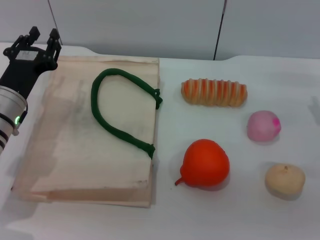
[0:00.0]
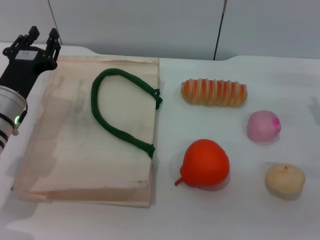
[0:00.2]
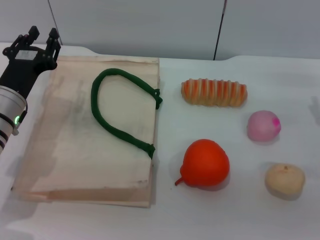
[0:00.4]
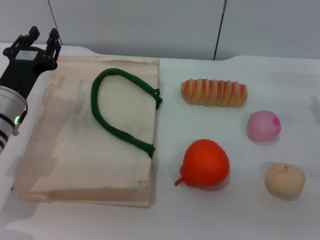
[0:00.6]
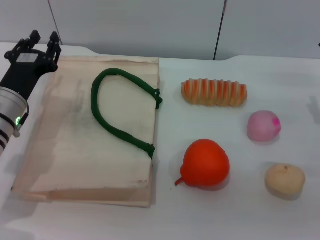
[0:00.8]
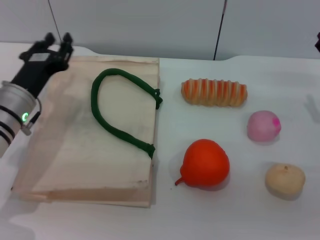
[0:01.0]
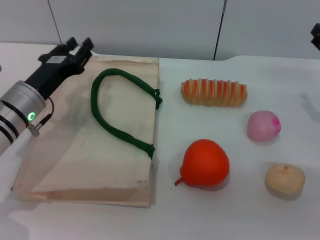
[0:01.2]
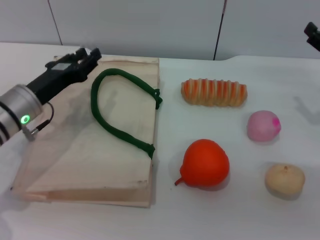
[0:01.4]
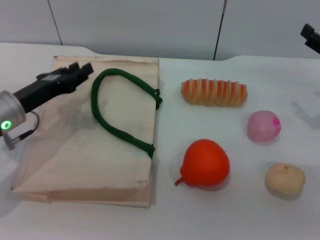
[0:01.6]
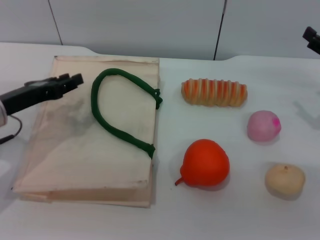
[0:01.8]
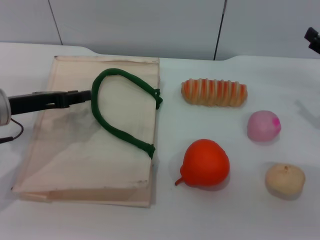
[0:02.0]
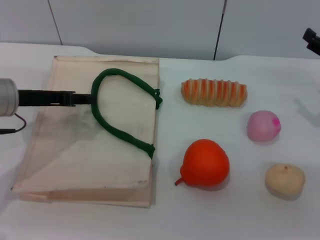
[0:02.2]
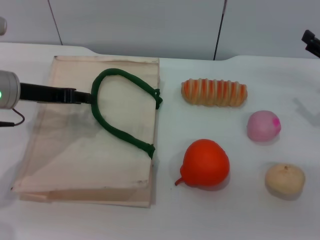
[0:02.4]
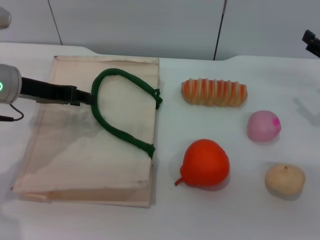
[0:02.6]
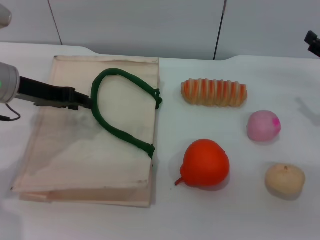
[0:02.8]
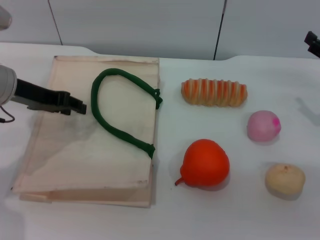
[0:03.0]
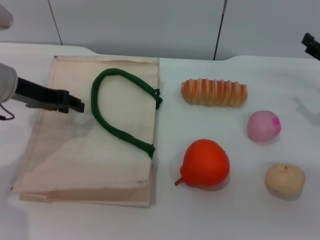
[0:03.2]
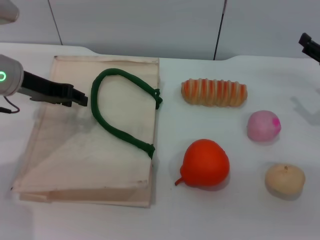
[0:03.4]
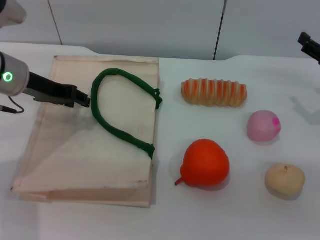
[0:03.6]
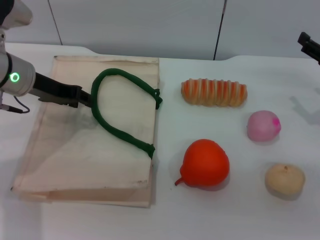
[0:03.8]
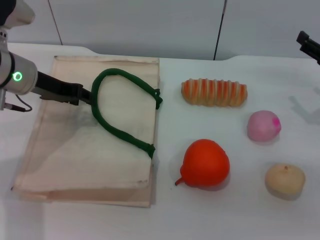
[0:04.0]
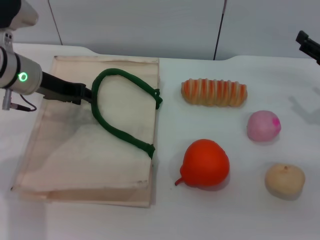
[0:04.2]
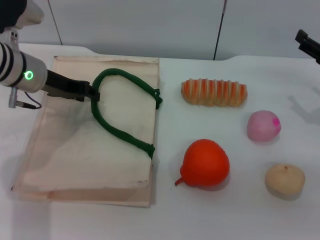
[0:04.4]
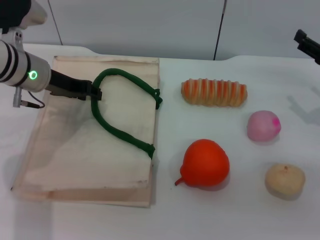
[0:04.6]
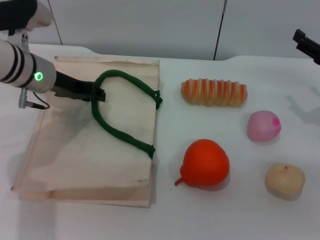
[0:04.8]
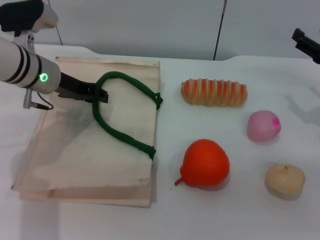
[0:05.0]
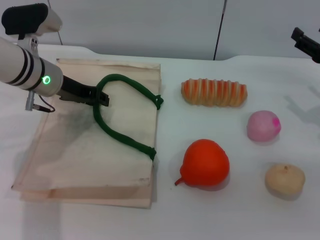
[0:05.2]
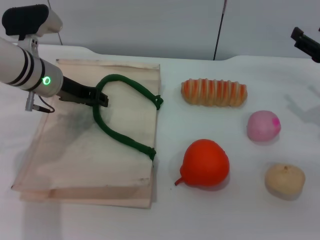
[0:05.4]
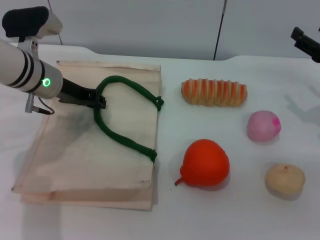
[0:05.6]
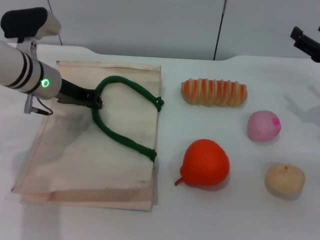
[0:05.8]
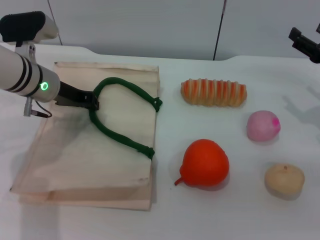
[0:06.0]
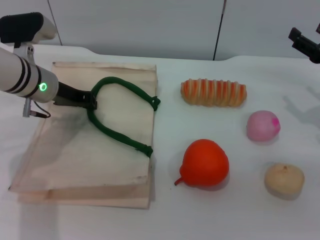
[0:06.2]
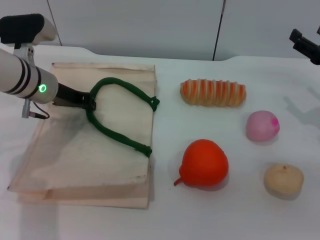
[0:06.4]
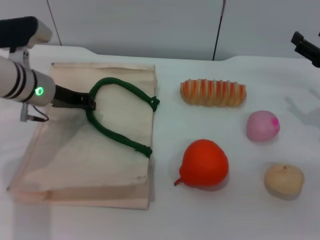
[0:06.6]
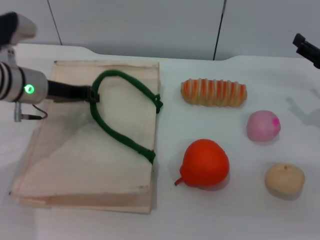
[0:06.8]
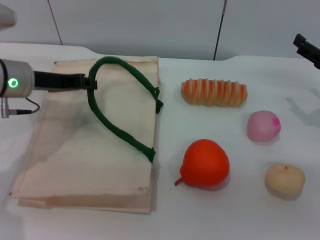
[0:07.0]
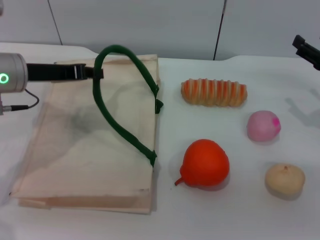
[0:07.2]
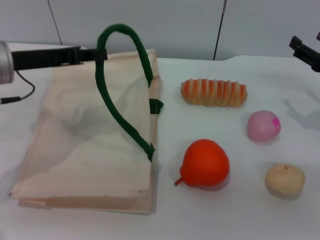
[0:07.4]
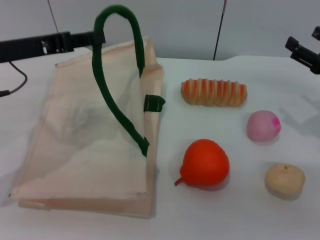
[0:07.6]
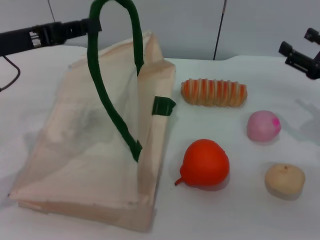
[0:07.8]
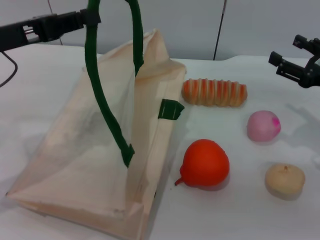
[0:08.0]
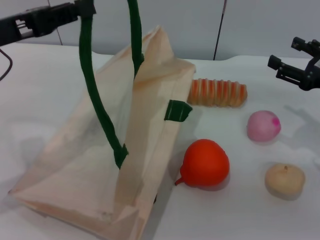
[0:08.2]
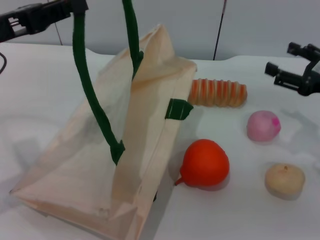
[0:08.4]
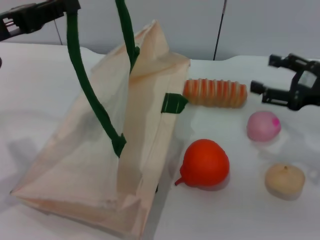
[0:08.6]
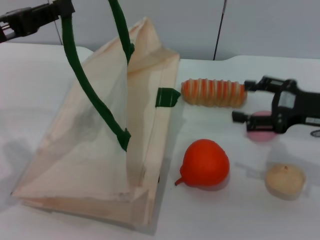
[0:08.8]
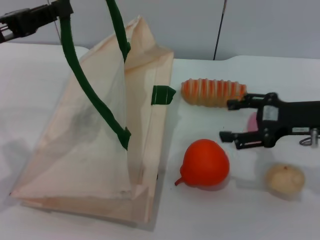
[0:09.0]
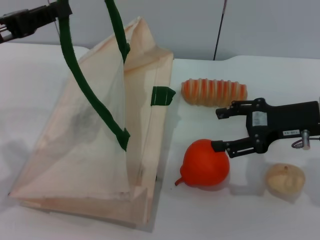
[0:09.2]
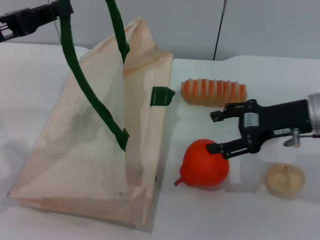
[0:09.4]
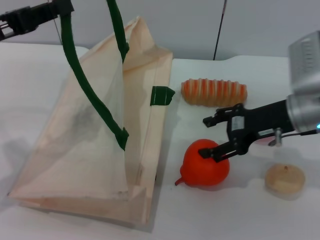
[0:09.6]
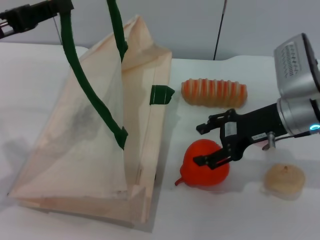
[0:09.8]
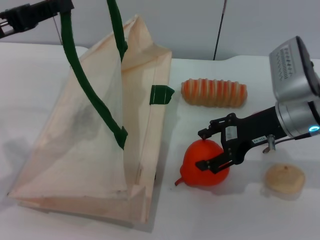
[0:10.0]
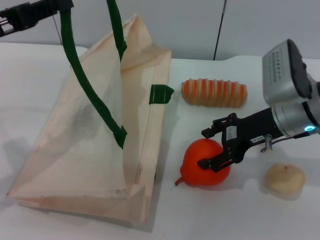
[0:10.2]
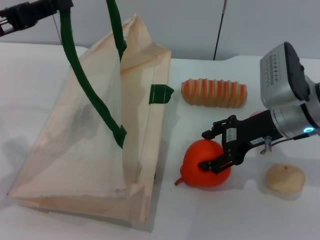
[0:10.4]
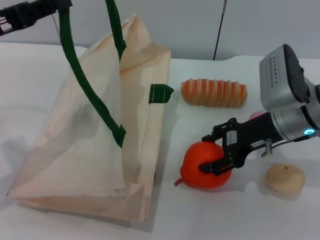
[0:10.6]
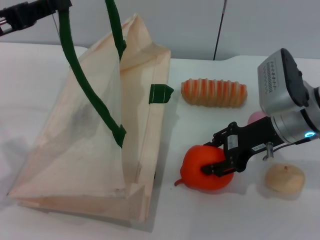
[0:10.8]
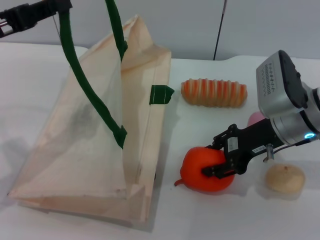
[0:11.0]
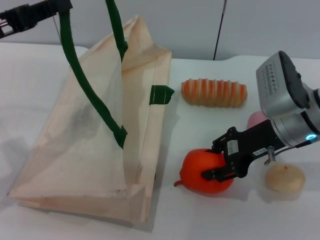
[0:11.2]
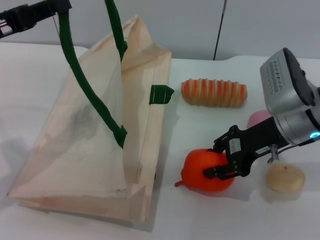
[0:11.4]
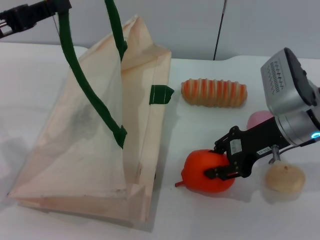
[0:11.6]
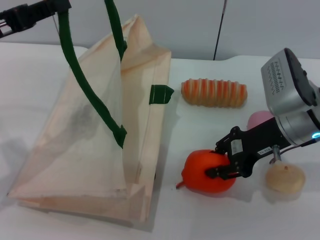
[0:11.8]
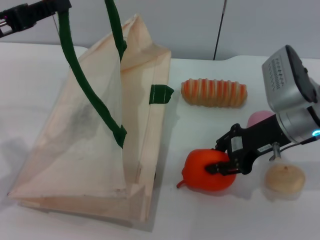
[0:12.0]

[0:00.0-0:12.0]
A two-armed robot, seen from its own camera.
Task of the whole recording: pick up the orange and peach from the table and place it in the white handbag.
Step, 0:00.0 to 0:07.4: Lift the woven bag with the left gripper to open it.
0:01.6 to 0:03.0: The left gripper goes some 10 cm upward.
0:03.0 to 0:04.4: The left gripper ends up approximately 5 cm from where it was.
0:04.4 to 0:06.0: The grippers stay close to where they were, moving slightly.
0:06.0 to 0:07.6: The left gripper heads backward and upward, covering roughly 10 cm.
0:07.6 to 0:09.0: The right gripper shifts approximately 5 cm to the left.
0:09.0 to 0:10.4: The right gripper heads to the left, covering about 5 cm.
0:10.4 to 0:12.0: The right gripper closes its fingers.

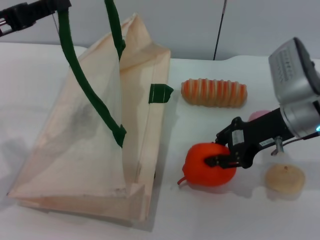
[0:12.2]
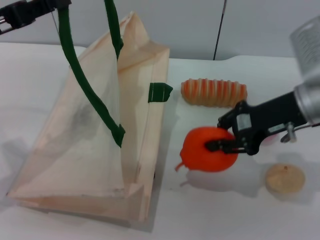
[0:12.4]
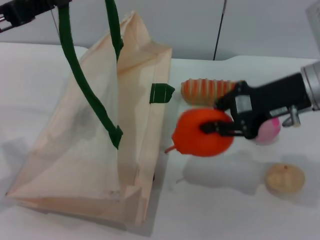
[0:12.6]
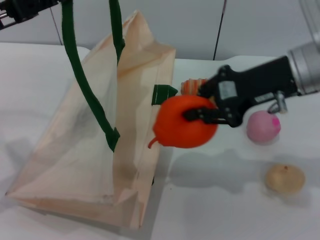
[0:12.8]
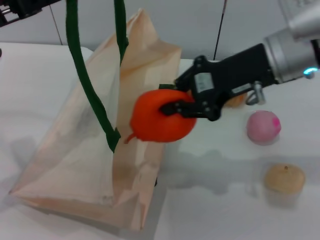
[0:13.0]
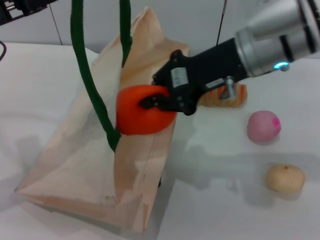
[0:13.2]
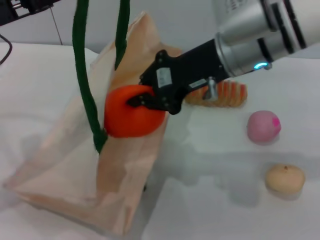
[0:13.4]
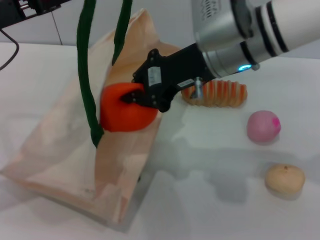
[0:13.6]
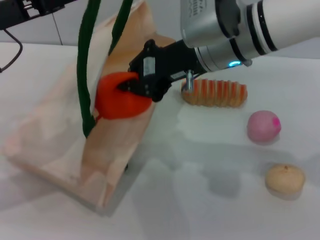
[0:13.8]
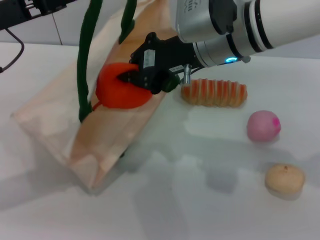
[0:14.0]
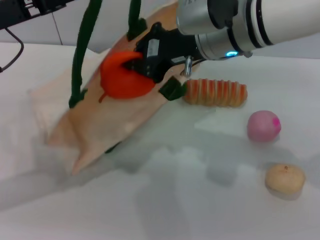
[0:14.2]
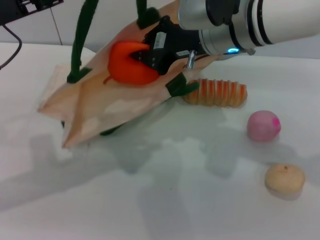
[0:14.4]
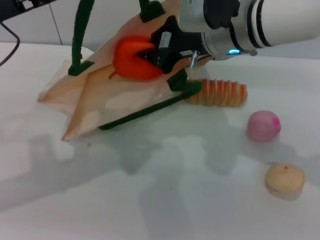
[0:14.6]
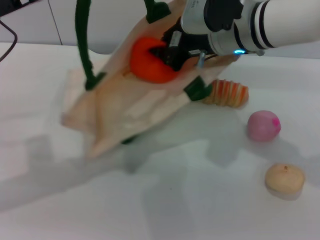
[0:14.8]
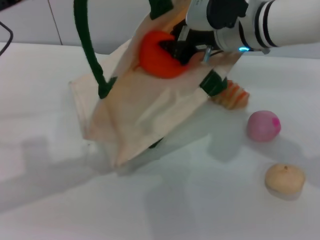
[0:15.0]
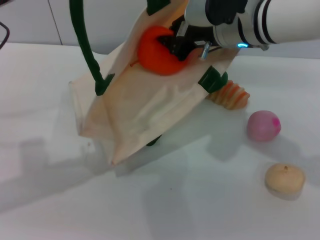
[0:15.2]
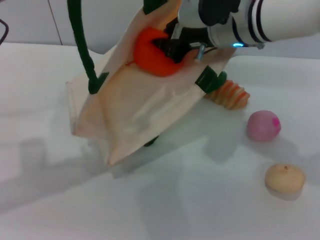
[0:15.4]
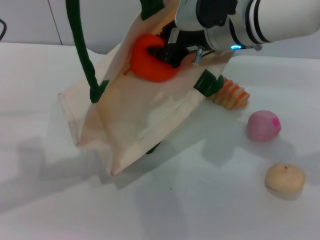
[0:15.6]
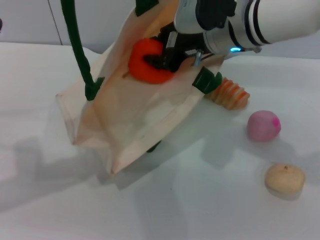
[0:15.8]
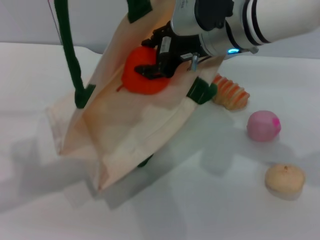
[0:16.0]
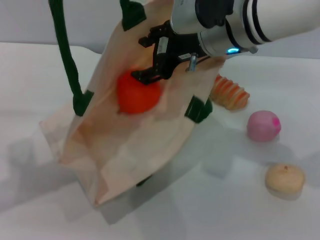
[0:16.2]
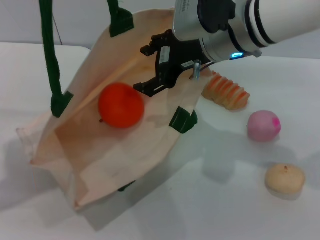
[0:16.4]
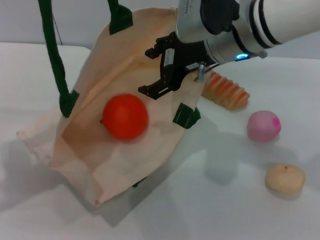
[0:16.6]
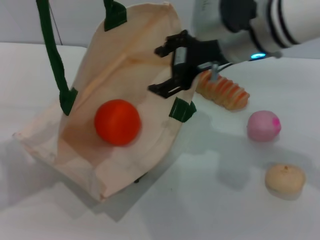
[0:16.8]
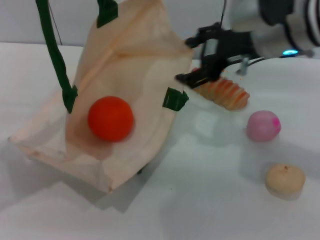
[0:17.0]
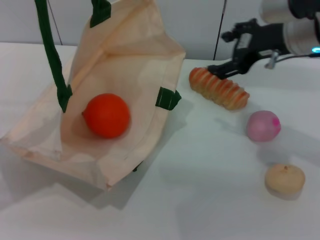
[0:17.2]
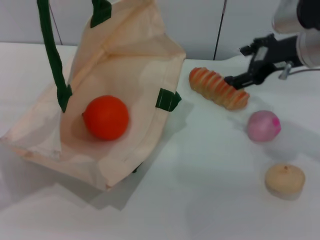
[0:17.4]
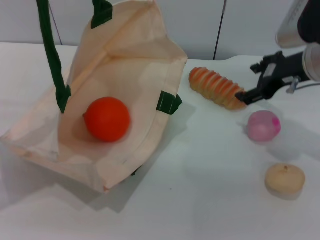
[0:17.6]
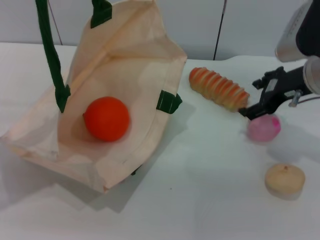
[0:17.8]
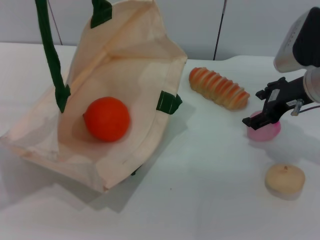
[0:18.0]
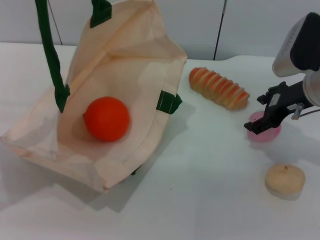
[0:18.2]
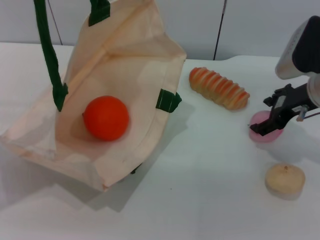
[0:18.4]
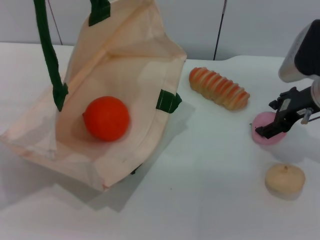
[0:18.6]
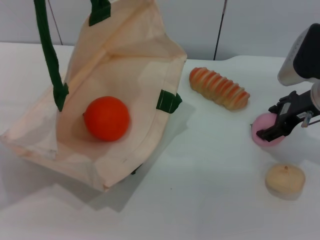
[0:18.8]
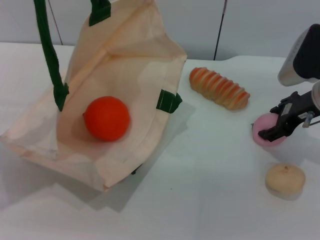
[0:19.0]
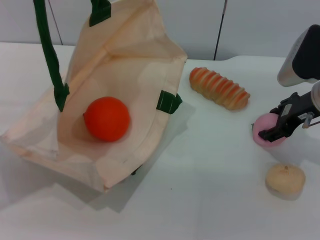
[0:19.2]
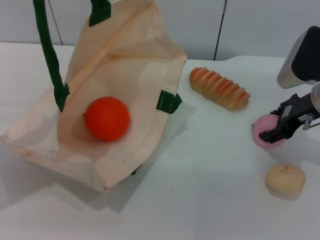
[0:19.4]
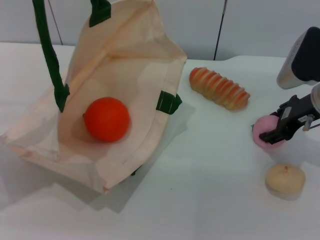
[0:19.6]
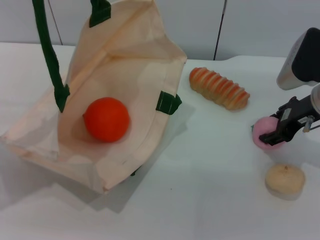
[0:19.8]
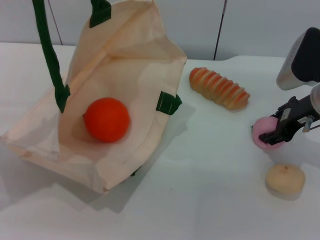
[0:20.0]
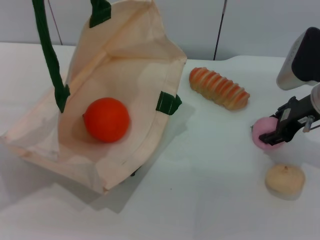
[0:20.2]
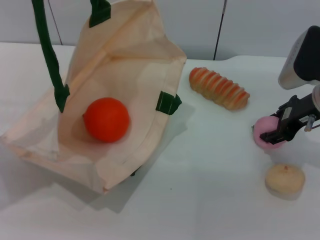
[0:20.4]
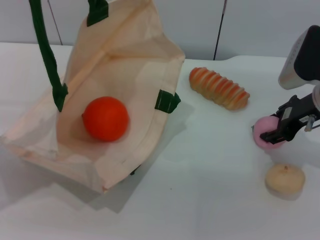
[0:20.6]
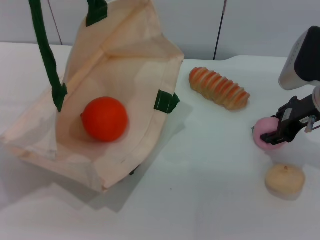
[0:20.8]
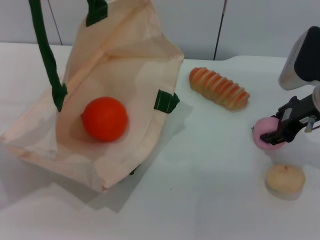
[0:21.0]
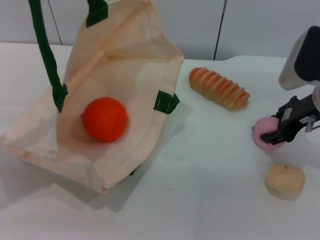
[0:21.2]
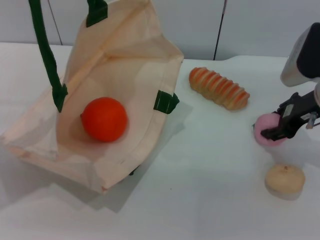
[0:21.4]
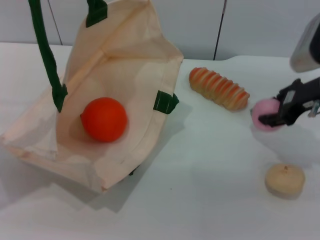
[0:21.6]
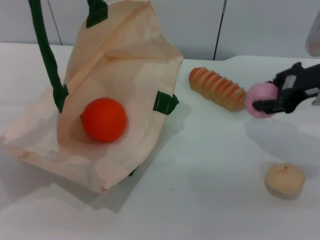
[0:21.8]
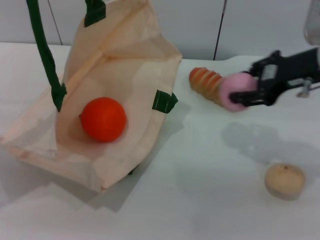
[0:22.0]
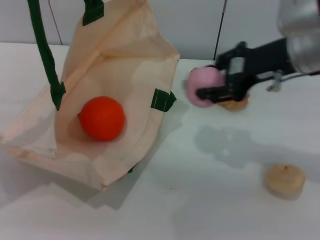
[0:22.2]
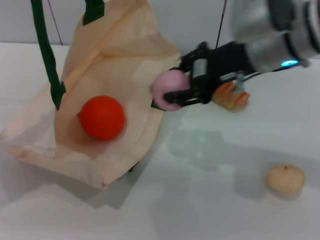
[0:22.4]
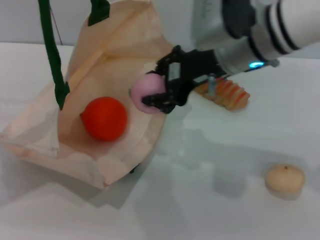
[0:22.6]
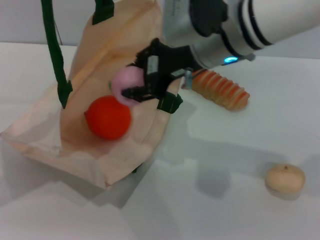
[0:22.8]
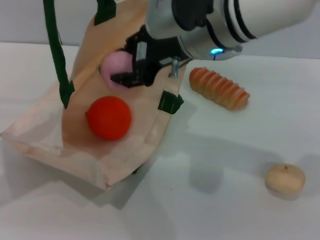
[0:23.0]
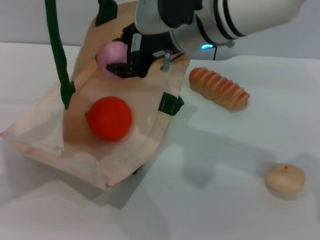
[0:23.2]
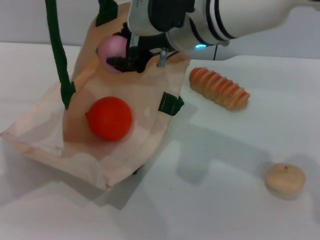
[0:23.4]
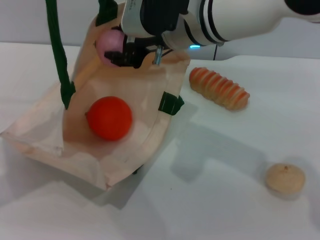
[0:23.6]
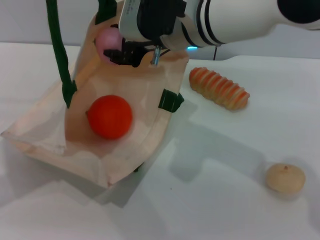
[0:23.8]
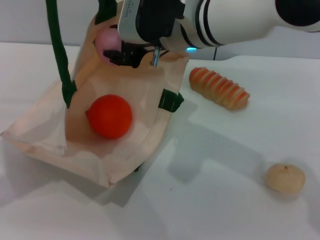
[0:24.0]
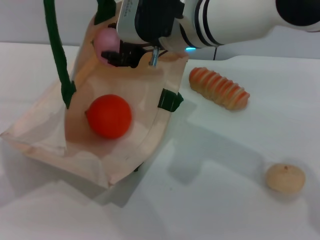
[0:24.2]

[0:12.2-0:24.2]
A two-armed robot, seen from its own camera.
Task of the whole recording: pick up the orange and peach from the table and place it in the white handbag.
Step, 0:12.6 to 0:17.4: Place the orange into the woven bag with the right gripper.
Step, 0:17.6 to 0:21.8: Pick up the peach with the right gripper.
0:12.2 to 0:13.8: The right gripper heads to the left and upward, covering about 15 cm.
0:13.8 to 0:15.2: The right gripper moves about 5 cm.
0:15.2 to 0:16.6: The right gripper opens up.
0:16.6 to 0:18.2: The right gripper heads to the right and downward, covering roughly 15 cm.
0:18.2 to 0:19.8: There are only small adjustments of the grippers.
0:19.8 to 0:21.2: Both grippers stay about where they are.
0:21.2 to 0:22.6: The right gripper shifts some 15 cm to the left and upward.
0:22.6 to 0:24.2: The right gripper moves to the left, roughly 5 cm.
